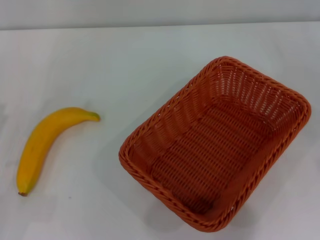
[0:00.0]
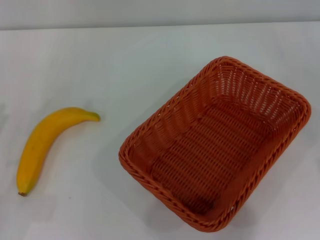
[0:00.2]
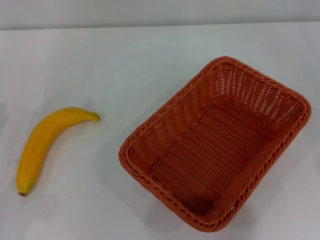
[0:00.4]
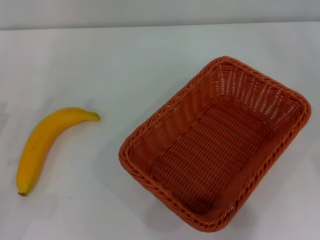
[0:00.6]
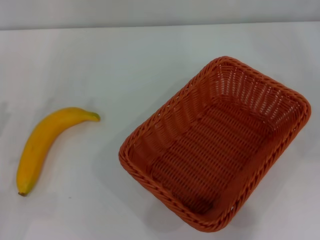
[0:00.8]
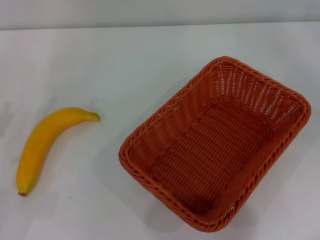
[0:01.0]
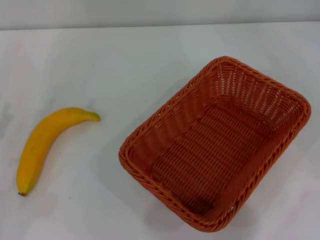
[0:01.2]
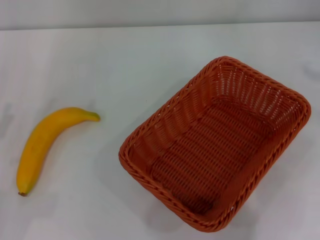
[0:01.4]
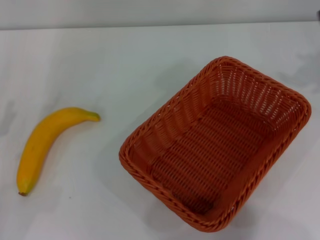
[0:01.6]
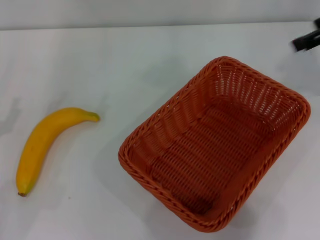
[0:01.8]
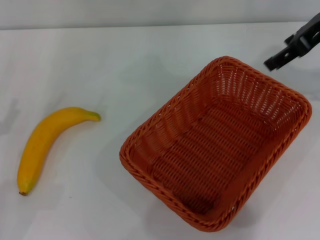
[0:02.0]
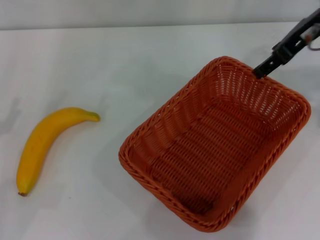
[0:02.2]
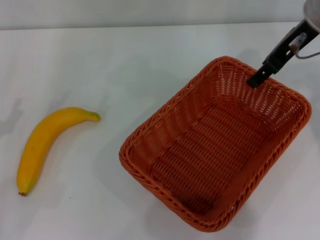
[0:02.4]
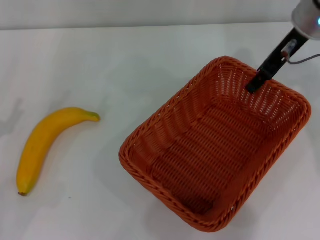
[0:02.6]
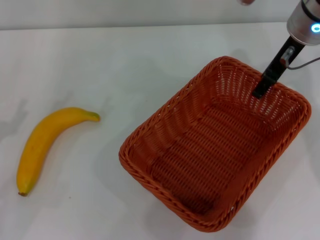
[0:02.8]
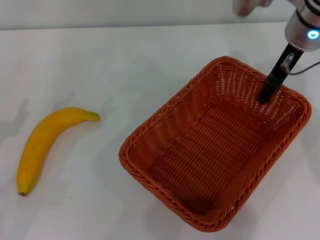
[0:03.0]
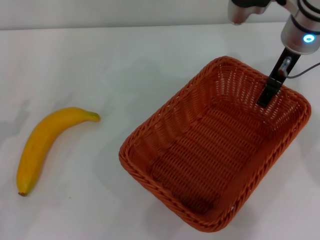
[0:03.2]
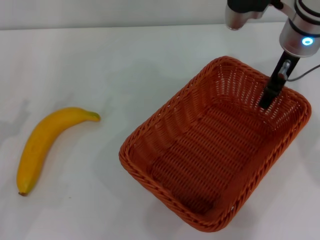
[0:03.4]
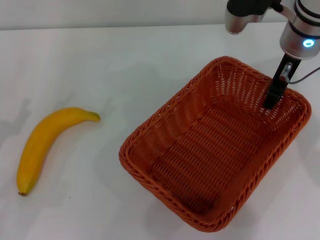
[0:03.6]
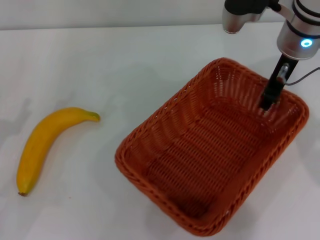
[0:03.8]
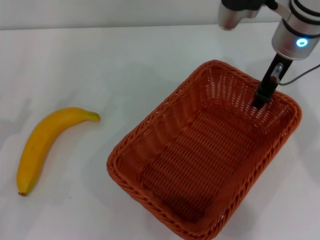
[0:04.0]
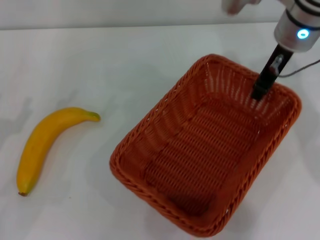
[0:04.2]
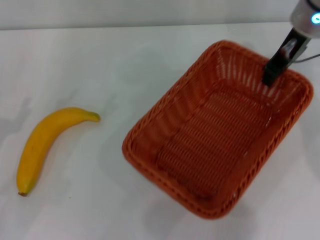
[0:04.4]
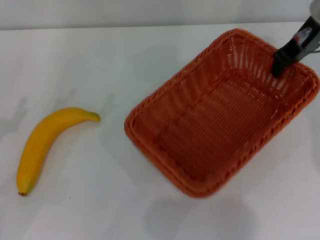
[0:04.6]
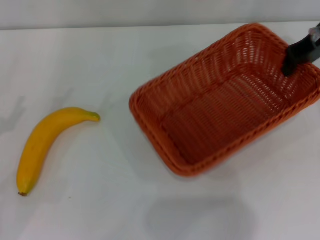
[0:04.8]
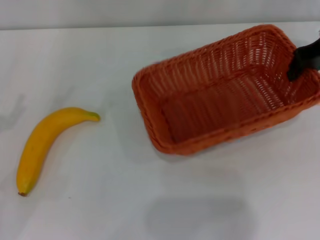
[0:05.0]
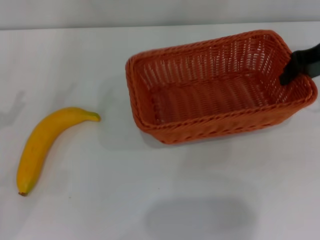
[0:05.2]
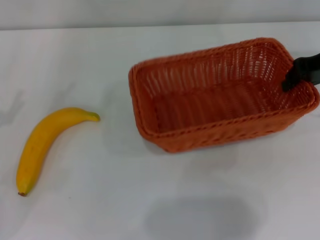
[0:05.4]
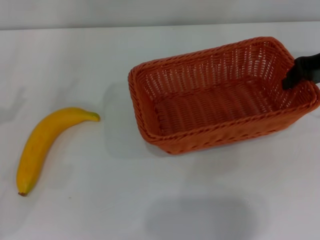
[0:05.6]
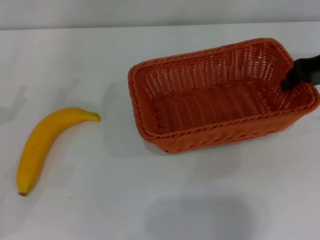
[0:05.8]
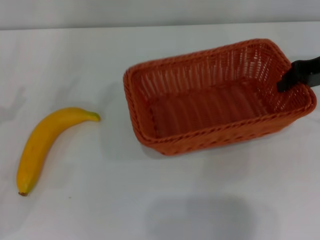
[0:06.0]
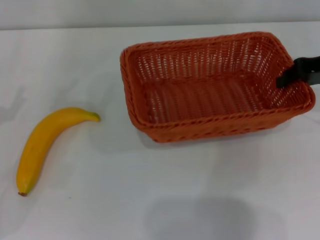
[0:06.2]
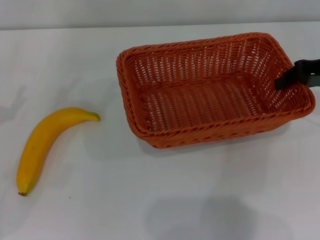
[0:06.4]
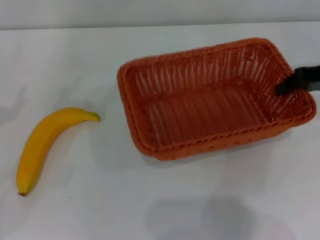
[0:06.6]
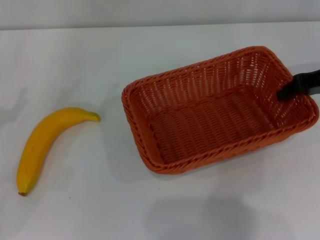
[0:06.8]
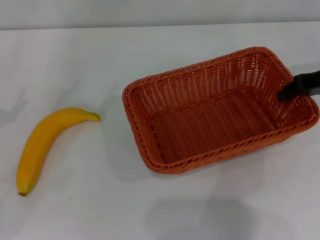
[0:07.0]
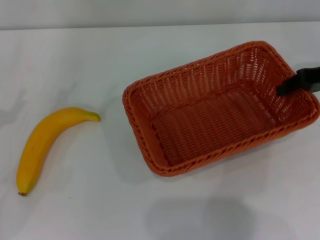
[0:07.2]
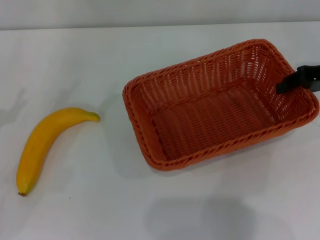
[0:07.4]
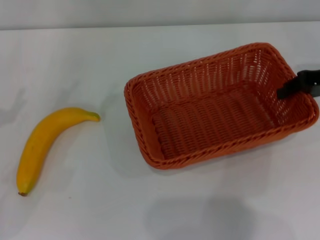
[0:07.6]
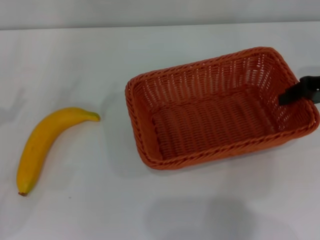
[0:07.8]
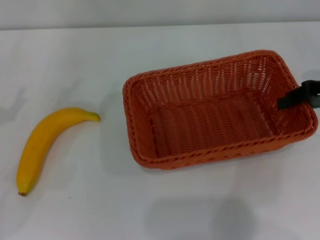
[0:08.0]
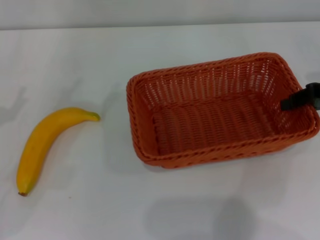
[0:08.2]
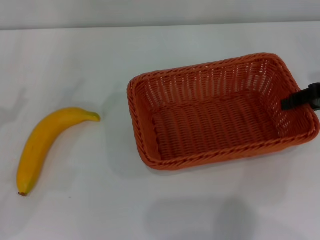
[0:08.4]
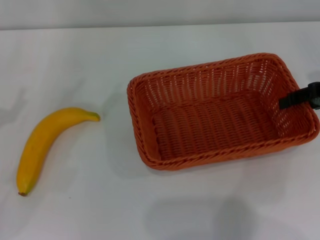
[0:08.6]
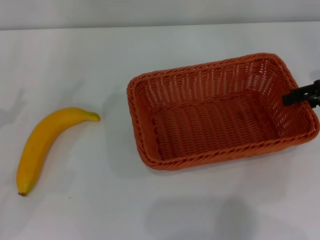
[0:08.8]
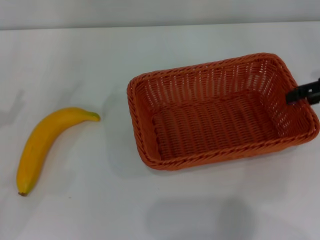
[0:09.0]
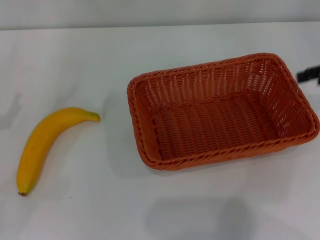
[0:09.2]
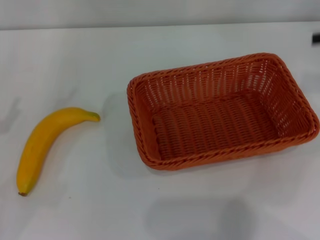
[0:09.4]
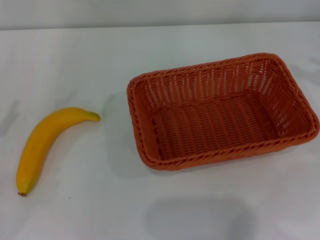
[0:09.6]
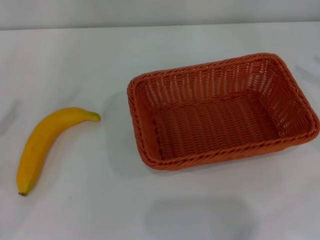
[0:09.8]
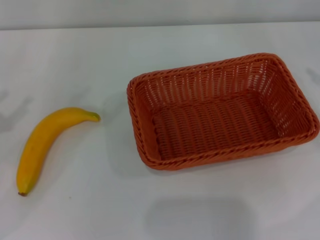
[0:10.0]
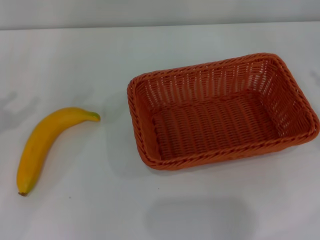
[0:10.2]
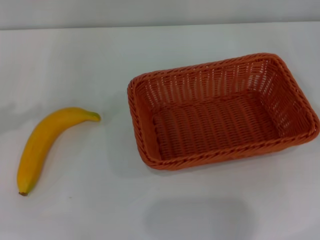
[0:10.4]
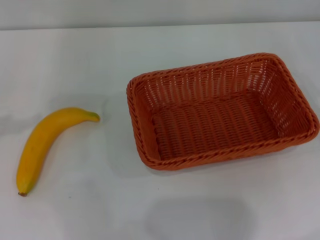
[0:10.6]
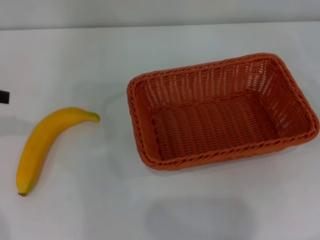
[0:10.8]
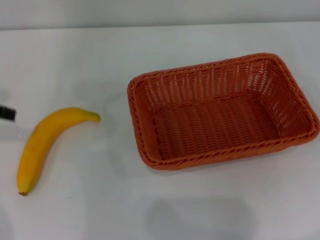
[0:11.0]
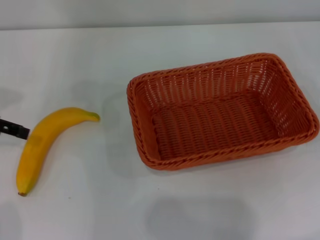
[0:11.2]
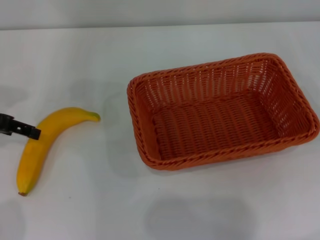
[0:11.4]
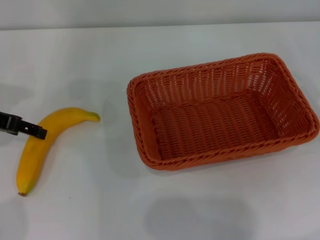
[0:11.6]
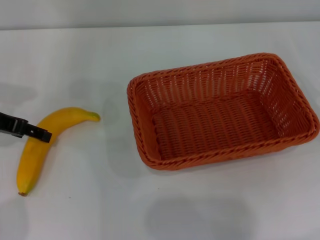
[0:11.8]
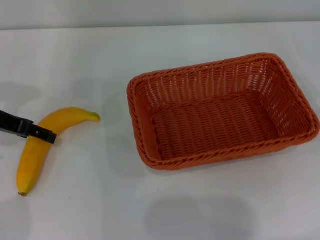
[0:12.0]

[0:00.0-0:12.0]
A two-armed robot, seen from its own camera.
Step, 0.0 to 4.2 s: Pick up the light basket with the right gripper.
Step, 4.4 to 9.0 s: Place the light basket in the center of view with the right gripper.
1.6 to 3.0 s: The right gripper shifts some 20 cm to the left and downward.
3.0 to 4.4 s: The right gripper closes up.
4.4 to 6.0 s: The right gripper travels to the right by about 10 cm.
6.0 to 7.6 s: There are only small adjustments of the grippers.
7.6 to 9.0 s: The right gripper opens up.
9.0 to 10.4 s: The right gripper goes approximately 10 cm to the right and backward.
10.4 to 12.0 s: The left gripper goes about 15 cm forward, to the right and downward.

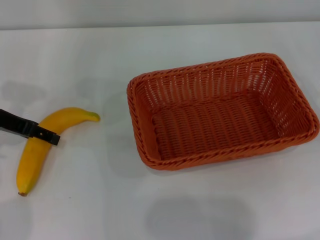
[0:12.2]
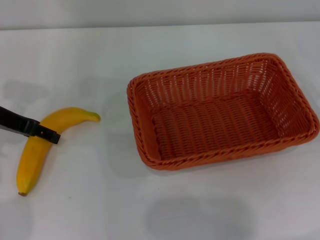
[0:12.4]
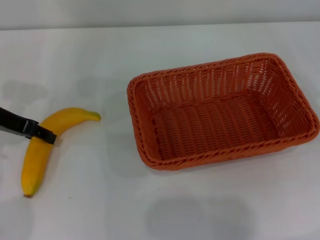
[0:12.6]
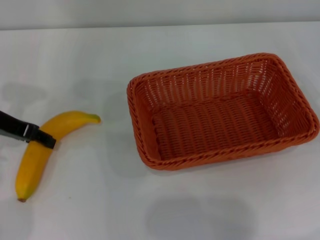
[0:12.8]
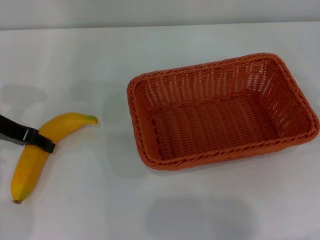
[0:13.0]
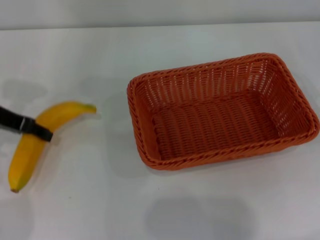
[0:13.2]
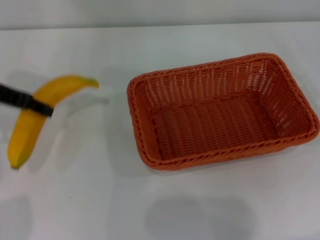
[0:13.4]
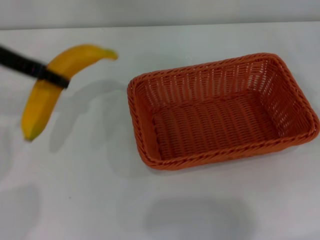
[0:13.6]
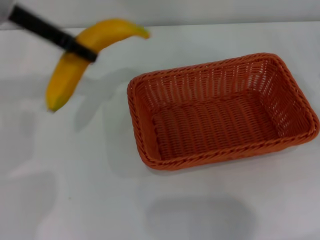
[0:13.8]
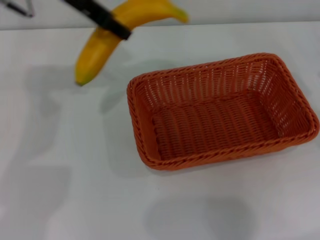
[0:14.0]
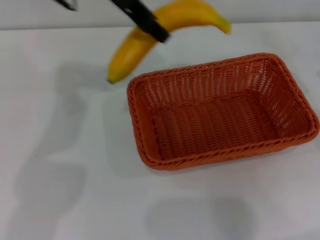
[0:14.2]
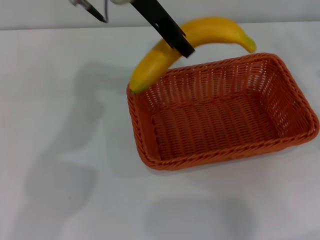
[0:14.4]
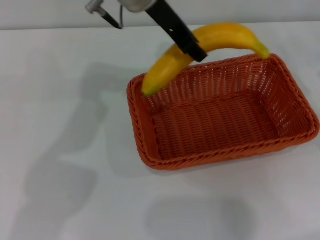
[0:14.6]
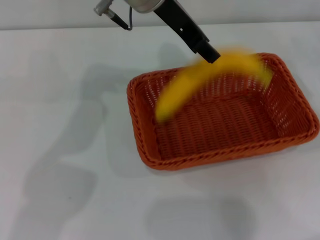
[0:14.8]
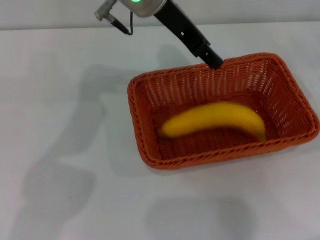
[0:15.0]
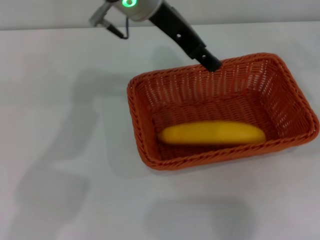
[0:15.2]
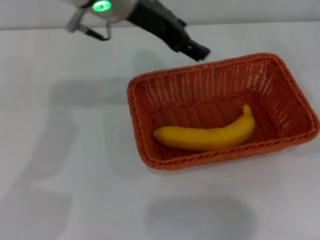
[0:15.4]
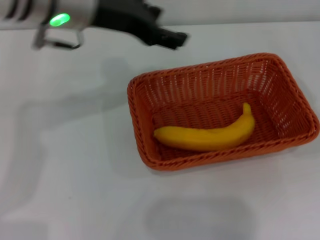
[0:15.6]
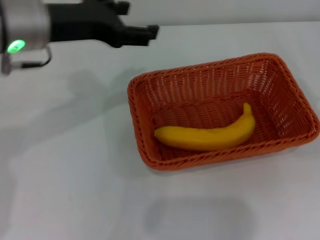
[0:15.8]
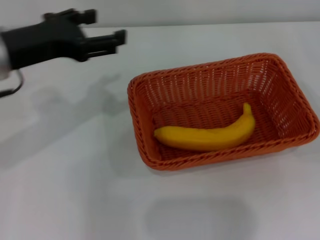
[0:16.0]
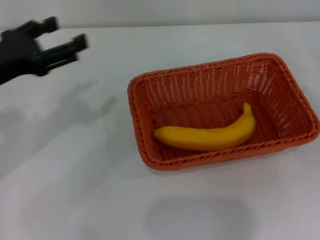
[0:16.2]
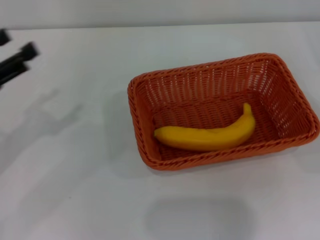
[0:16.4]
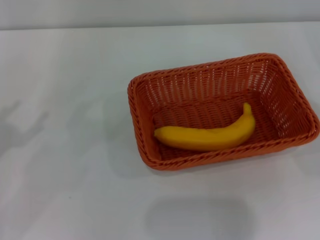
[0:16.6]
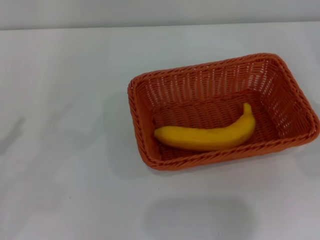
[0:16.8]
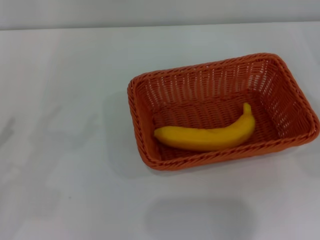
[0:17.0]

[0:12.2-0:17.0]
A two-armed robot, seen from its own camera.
Step, 13.6 to 15.0 s: Place the banana into the light basket with the left gripper.
12.2 to 13.8 s: The left gripper is displaced upward and to the right by roughly 15 cm, and closes up.
13.8 to 15.4 s: The left gripper goes roughly 10 cm to the right, and opens its fingers.
15.4 to 17.0 s: The right gripper closes, while the left gripper goes approximately 40 cm to the left, backward and downward.

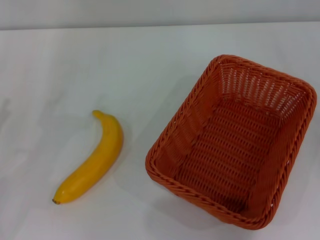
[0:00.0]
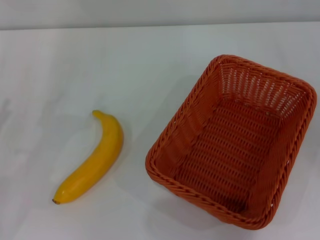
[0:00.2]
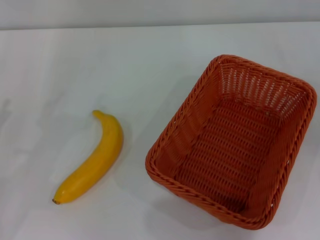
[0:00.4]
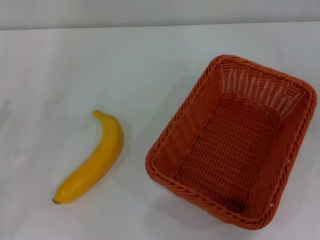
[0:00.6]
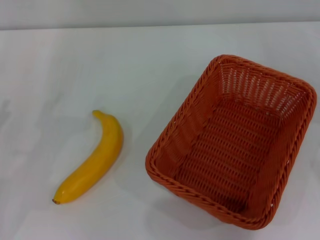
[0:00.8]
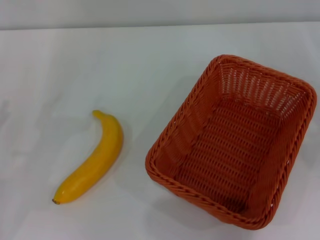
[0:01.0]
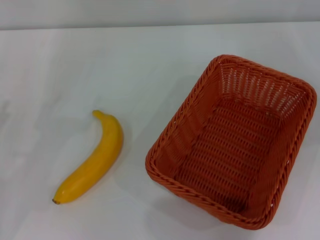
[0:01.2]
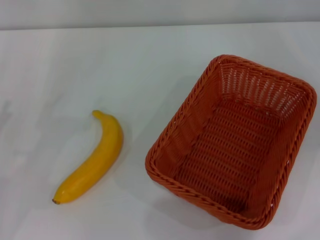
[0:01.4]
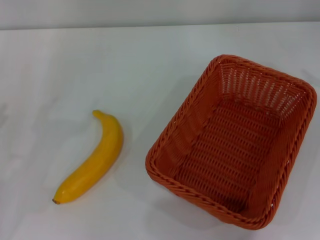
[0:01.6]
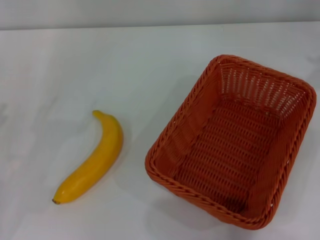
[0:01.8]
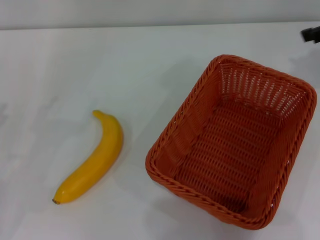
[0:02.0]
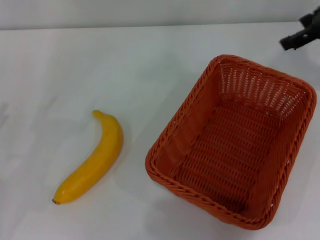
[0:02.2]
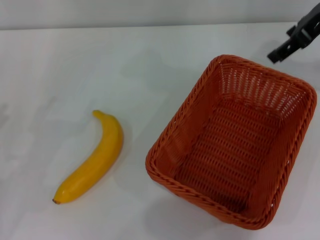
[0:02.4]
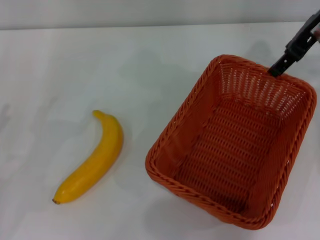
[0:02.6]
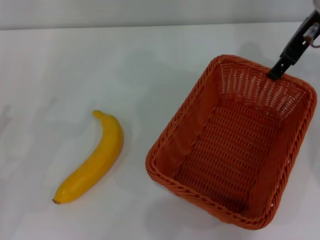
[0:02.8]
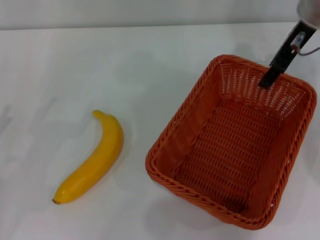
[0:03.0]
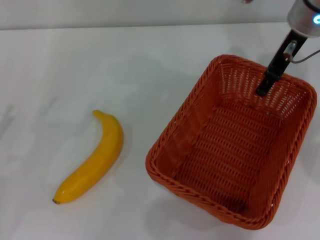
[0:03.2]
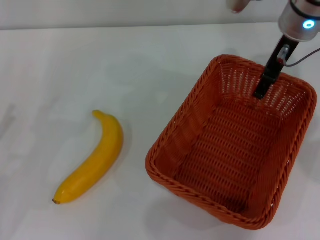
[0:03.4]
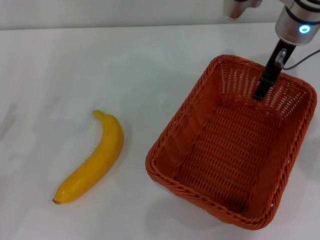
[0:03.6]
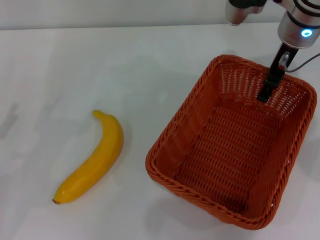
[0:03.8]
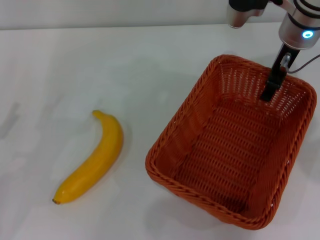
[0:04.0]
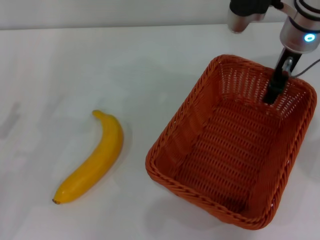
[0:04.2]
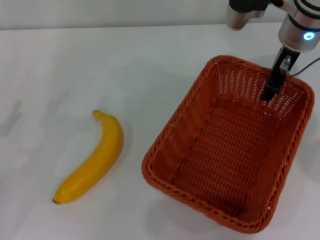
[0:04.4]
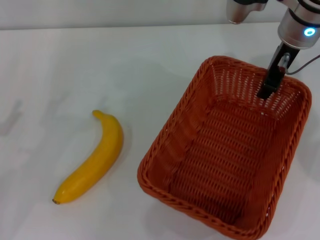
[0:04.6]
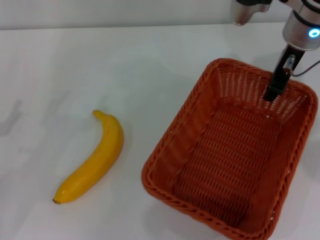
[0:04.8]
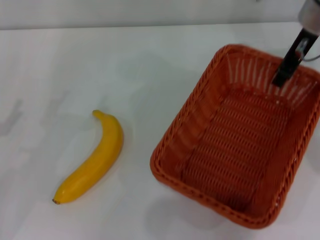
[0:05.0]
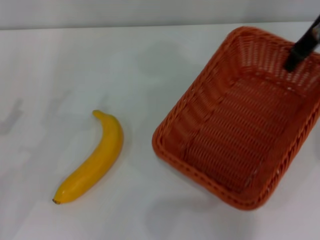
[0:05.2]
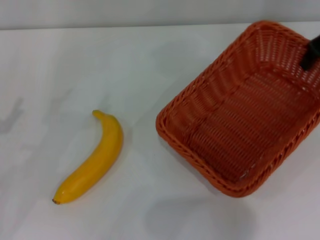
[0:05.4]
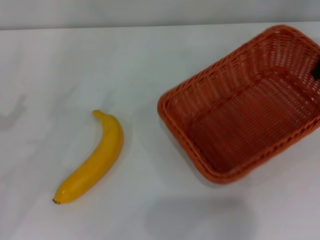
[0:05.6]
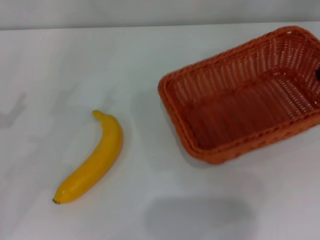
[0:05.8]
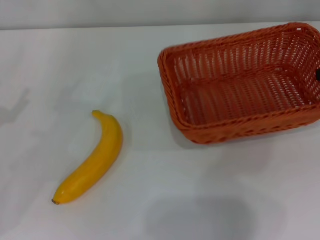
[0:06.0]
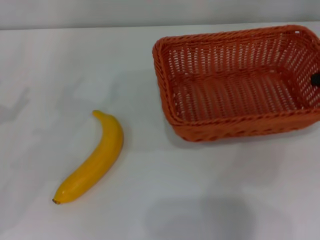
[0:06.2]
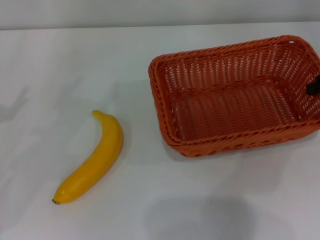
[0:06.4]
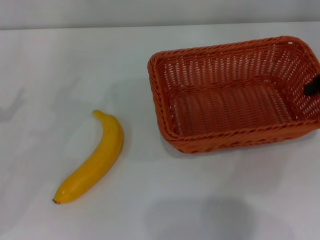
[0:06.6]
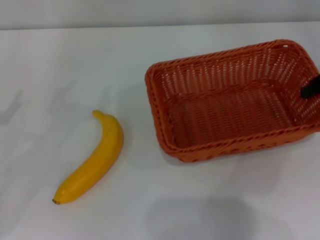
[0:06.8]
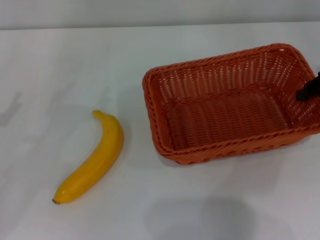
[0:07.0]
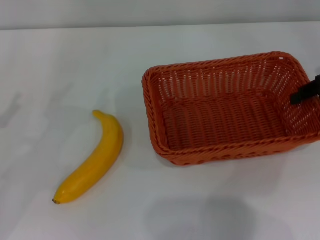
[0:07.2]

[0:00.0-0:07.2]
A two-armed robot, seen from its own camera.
Step, 0.0 to 5.2 s: Pick up the light basket with the right gripper.
1.4 to 2.8 s: The right gripper heads to the left and forward, covering about 25 cm.
2.8 to 4.4 s: The right gripper goes approximately 5 cm downward.
4.4 to 5.8 s: The right gripper moves to the right, some 15 cm, and closes up.
5.8 to 7.2 s: The right gripper moves downward, about 5 cm.
